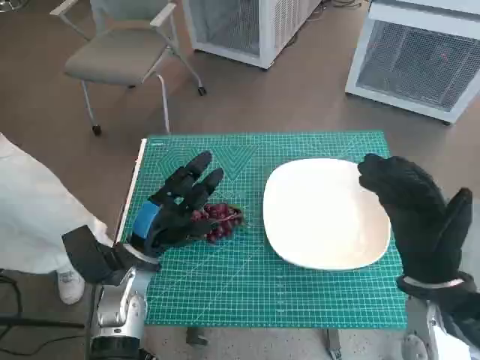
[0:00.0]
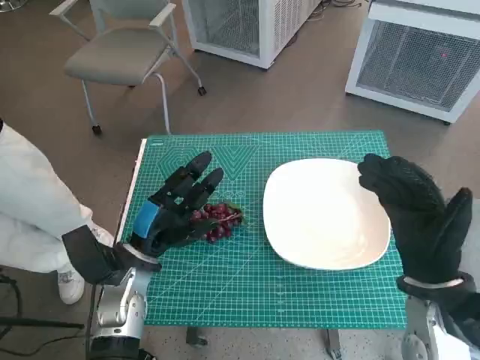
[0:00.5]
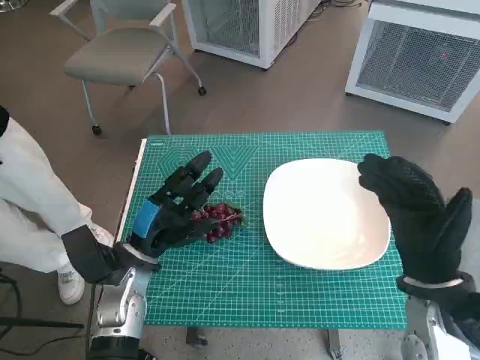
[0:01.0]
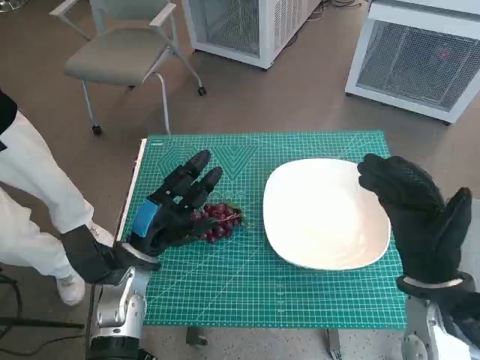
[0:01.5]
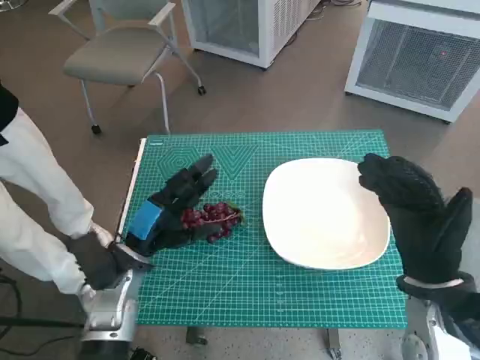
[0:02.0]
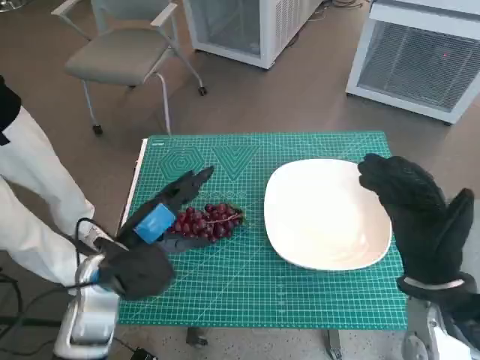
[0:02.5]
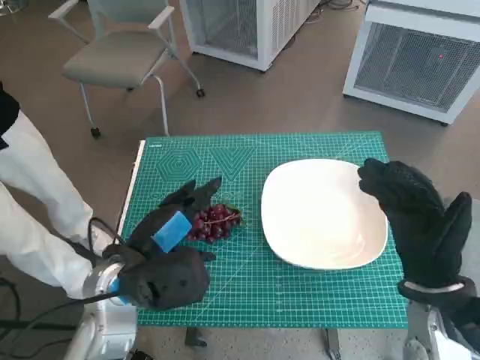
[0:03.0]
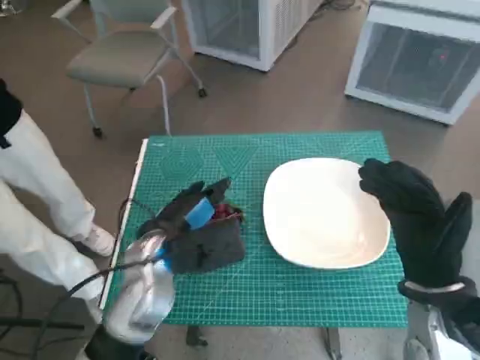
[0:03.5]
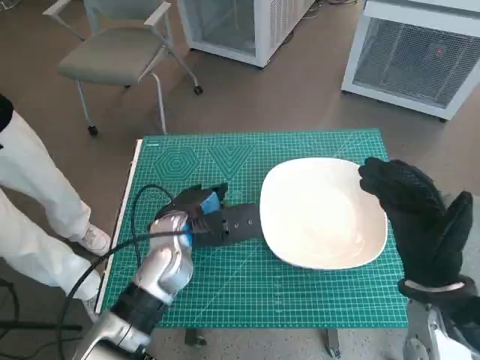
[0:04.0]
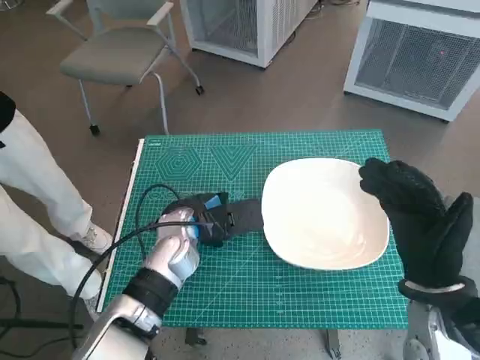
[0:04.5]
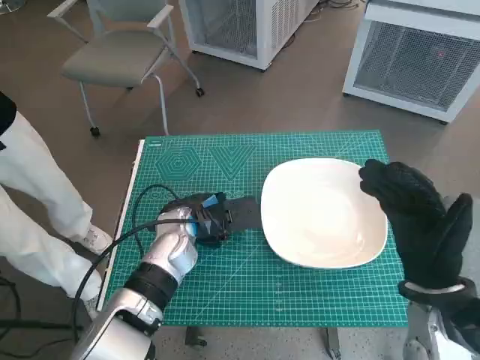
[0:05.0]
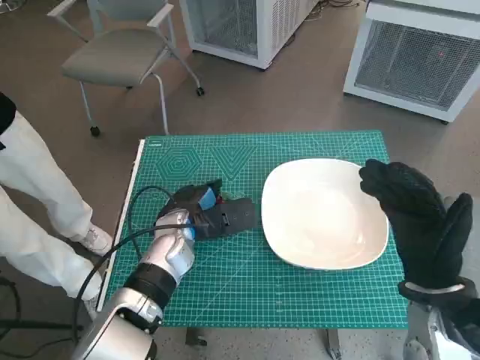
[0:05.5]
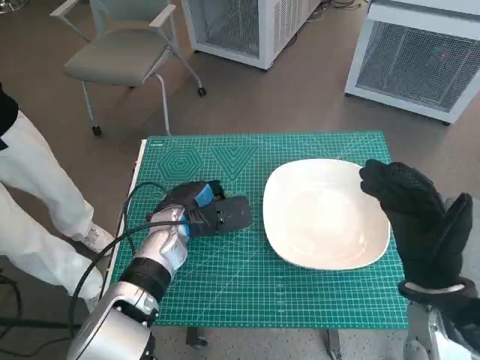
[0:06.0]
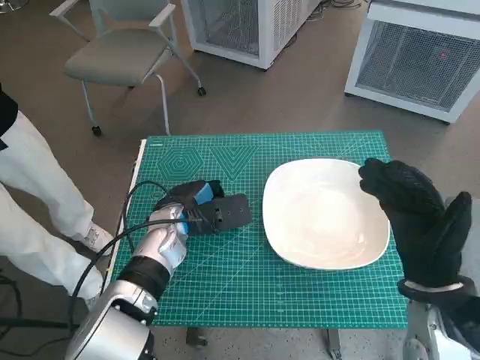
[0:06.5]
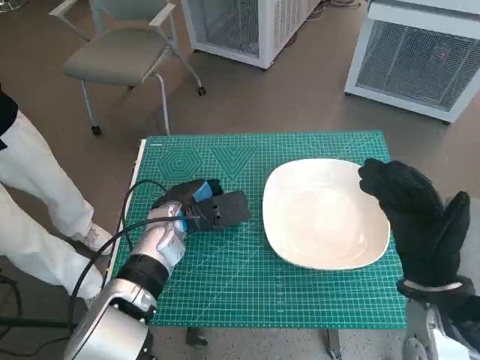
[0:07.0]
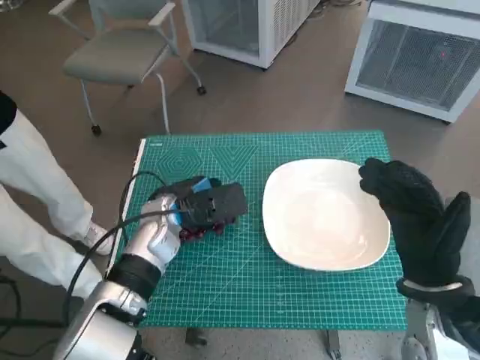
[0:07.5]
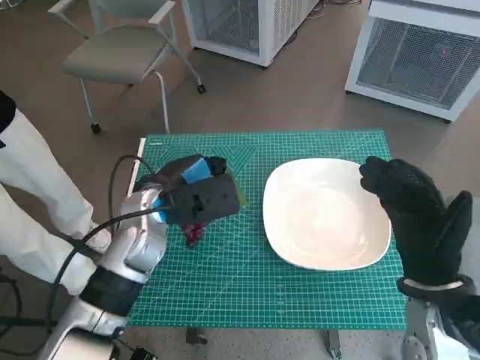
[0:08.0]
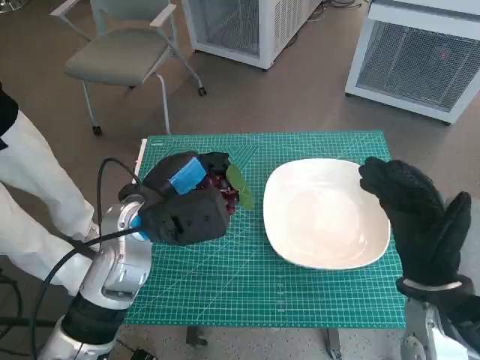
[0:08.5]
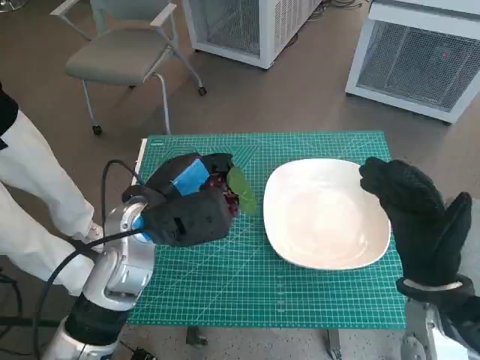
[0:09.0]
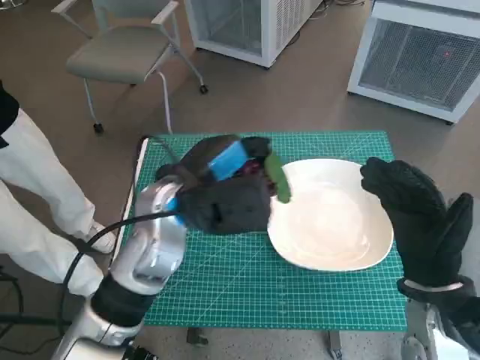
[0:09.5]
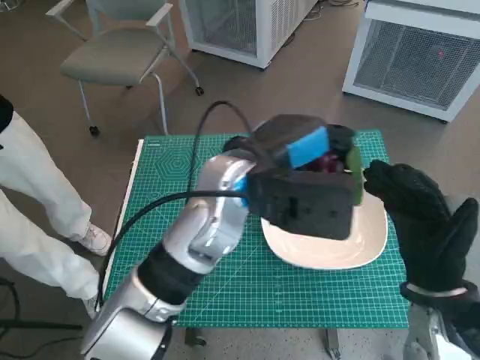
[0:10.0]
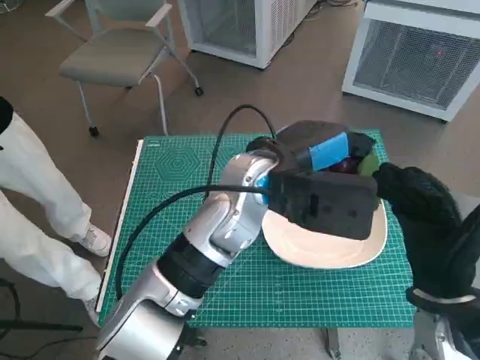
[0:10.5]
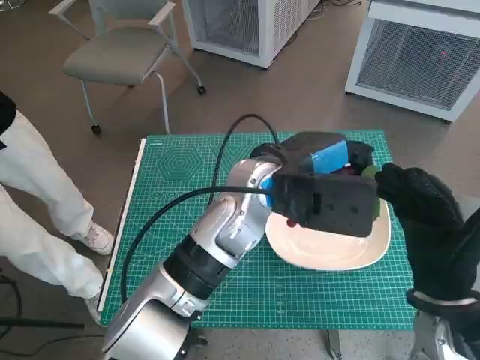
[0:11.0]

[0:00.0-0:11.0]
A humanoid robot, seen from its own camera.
Task of the whole recording: Pick up the grapes and put them on the plate.
Step, 0:00.0 to 0:07.0: Grasp the grapes with left hand.
0:02.0 to 0:03.5: The left hand shifts some 10 cm to the right and upward.
0:03.5 to 0:05.5: The left hand moves forward and downward, roughly 10 cm.
0:05.5 to 0:07.5: The hands stay close to where they were, moving slightly.
0:07.5 to 0:09.0: The left hand goes some 10 cm upward and backward.
0:09.0 to 0:11.0: The left hand heads to the right, covering approximately 15 cm.

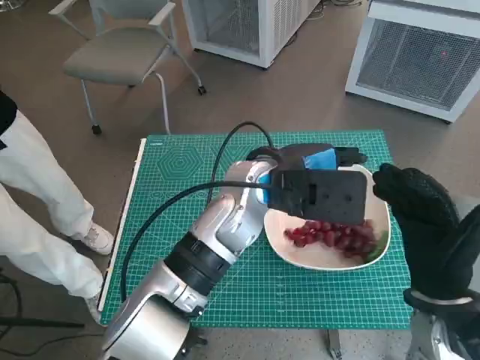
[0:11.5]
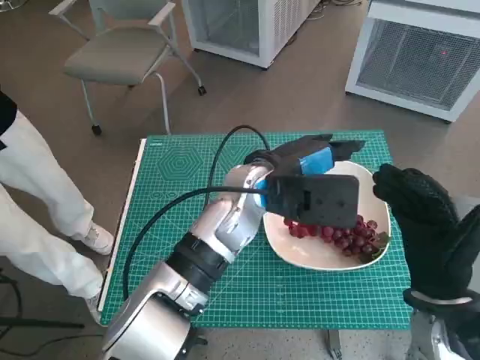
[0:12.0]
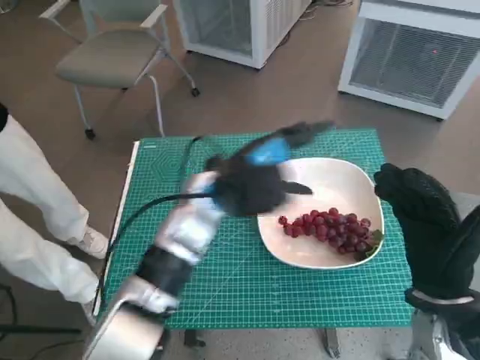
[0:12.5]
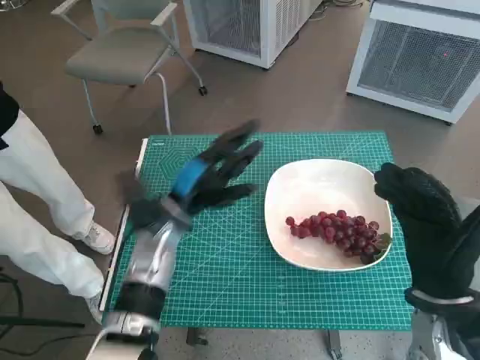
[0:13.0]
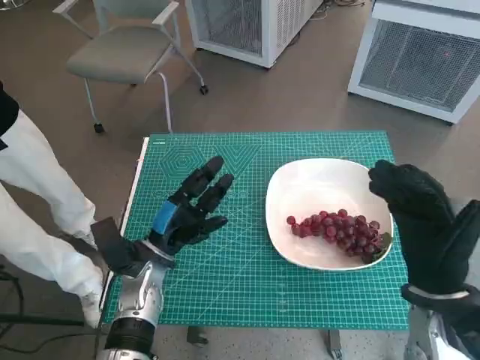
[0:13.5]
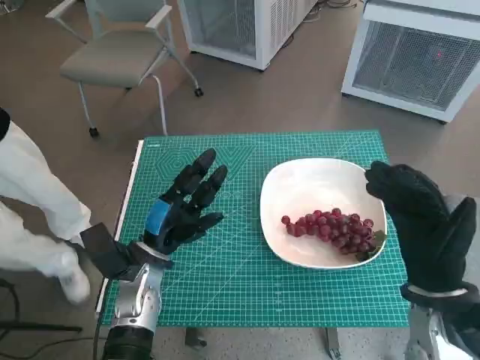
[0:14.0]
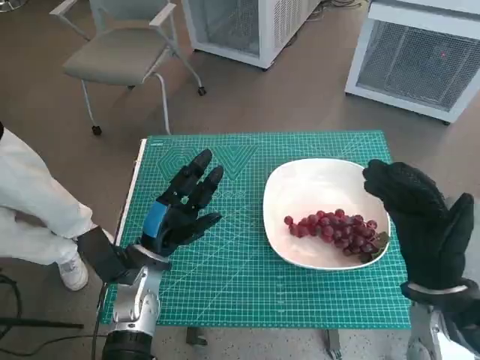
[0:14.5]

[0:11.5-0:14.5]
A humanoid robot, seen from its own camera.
Task of the whole recording: Pick up the grapes and put them on the plate.
0:11.5 to 0:13.0: The left hand travels to the left and downward by about 15 cm.
0:13.0 to 0:14.5: The left hand heads downward and backward, covering approximately 10 cm.

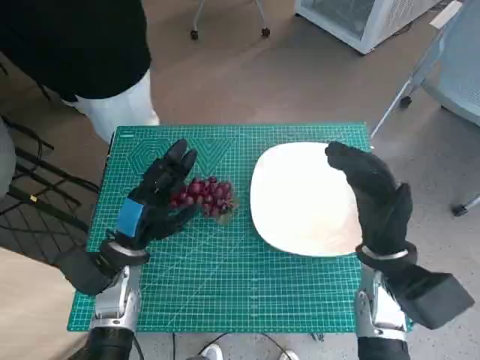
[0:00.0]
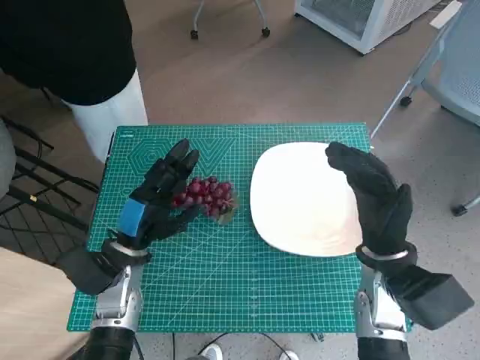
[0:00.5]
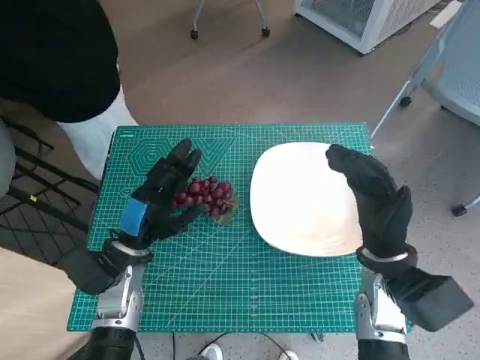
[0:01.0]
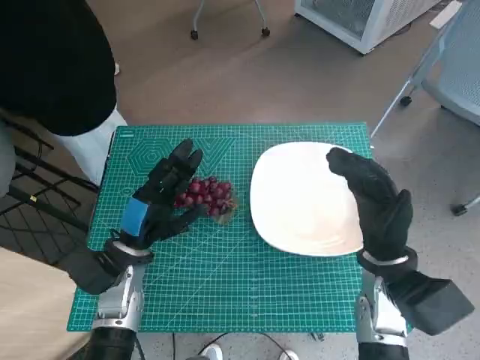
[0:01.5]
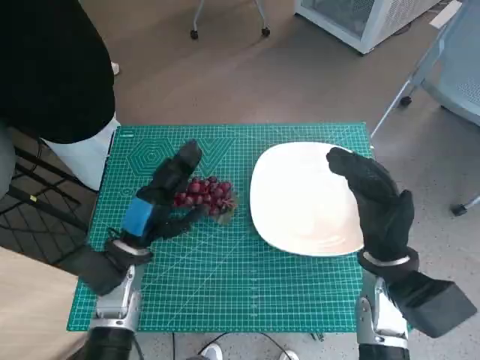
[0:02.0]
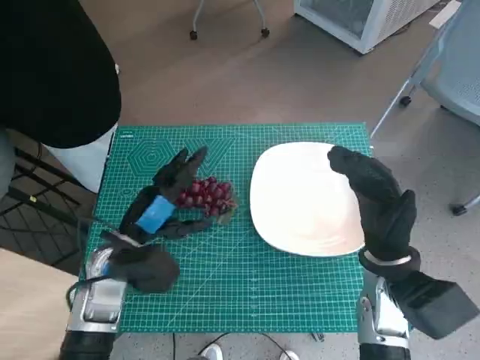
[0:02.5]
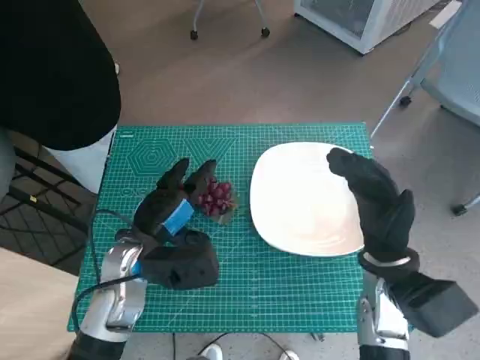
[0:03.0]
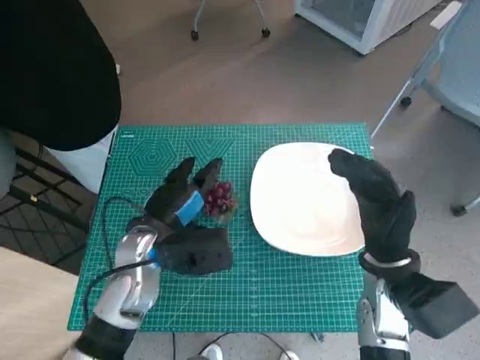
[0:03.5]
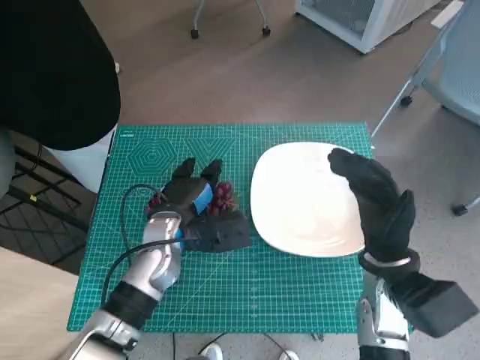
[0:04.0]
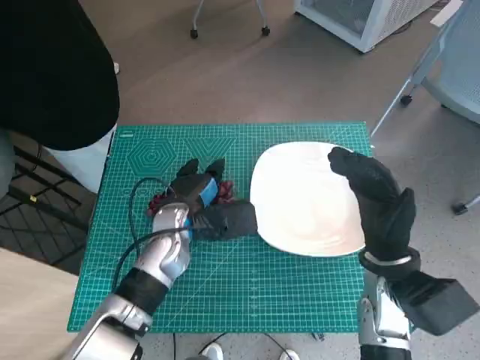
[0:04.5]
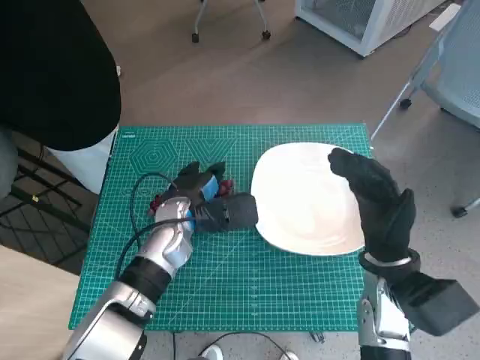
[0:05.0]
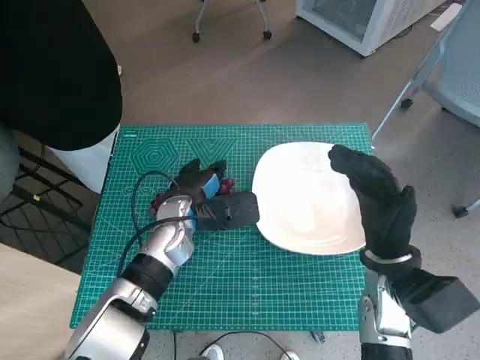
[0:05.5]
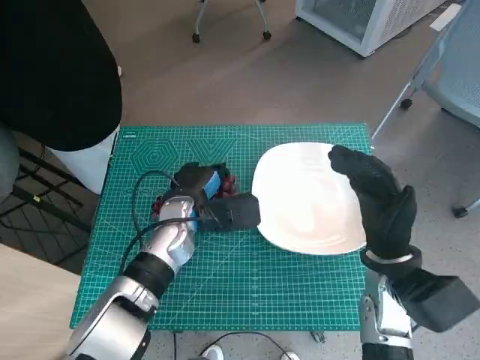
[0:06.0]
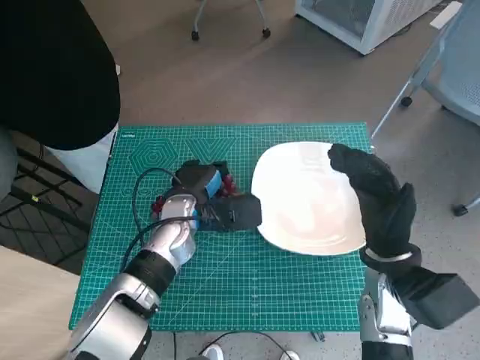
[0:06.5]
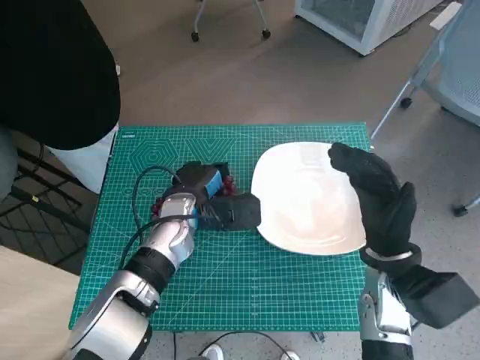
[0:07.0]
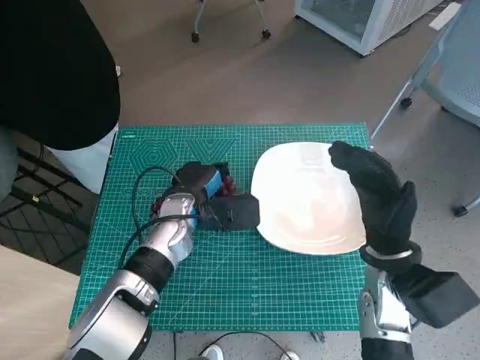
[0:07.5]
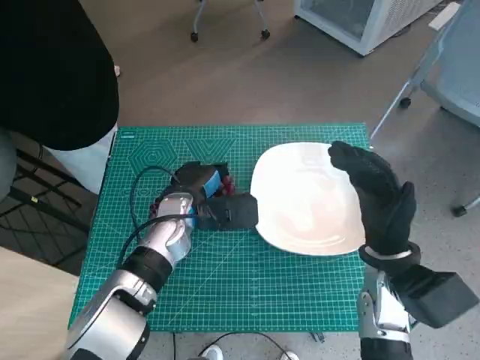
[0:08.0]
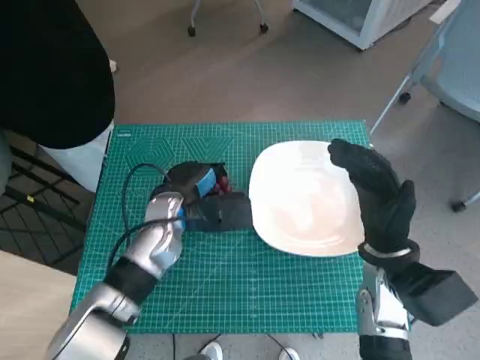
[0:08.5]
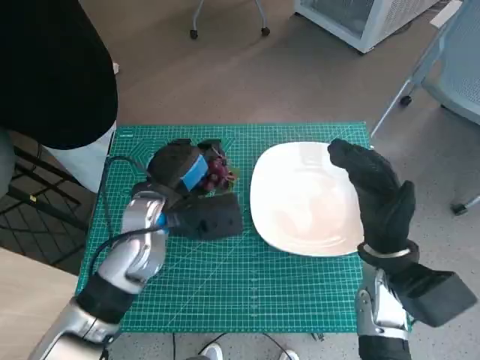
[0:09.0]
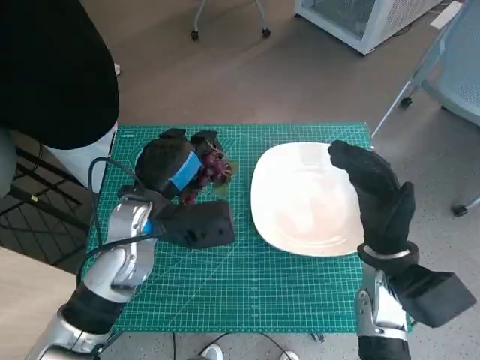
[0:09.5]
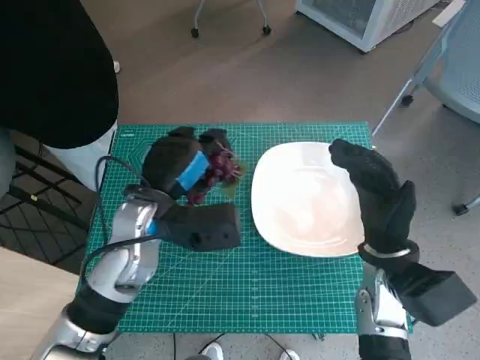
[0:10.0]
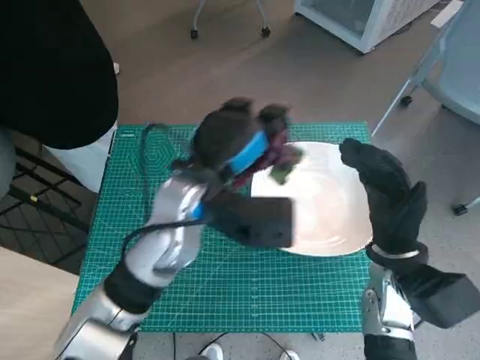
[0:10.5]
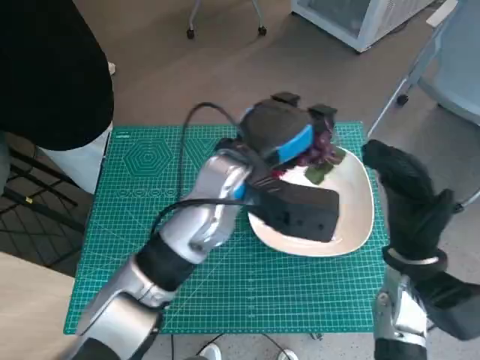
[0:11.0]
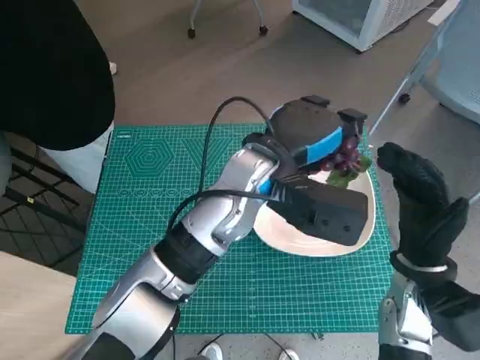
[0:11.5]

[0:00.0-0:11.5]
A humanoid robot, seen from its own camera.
Task of the whole recording: Pick up the grapes and put them on the plate.
Step, 0:00.0 to 0:06.0: Grasp the grapes with left hand.
0:02.0 to 0:04.0: The left hand is displaced to the right by some 5 cm.
0:04.0 to 0:06.0: The hands make only small movements.
0:06.0 to 0:07.5: Both hands stay about where they are.
0:07.5 to 0:09.5: The left hand is displaced upward and backward by roughly 10 cm.
0:09.5 to 0:11.5: The left hand is displaced to the right and upward by approximately 15 cm.
